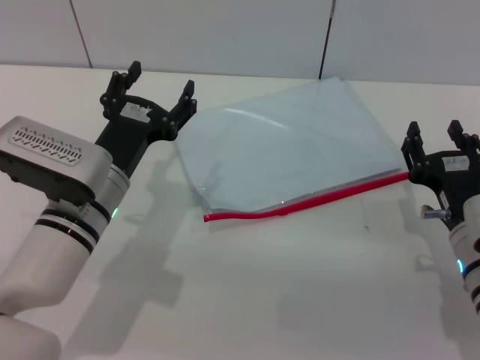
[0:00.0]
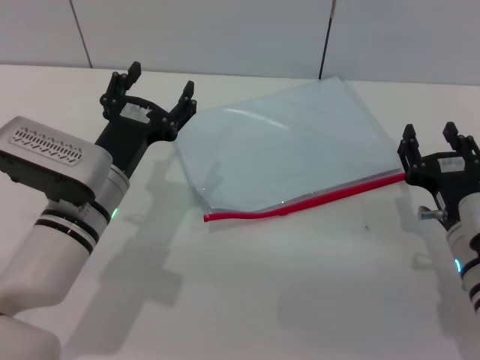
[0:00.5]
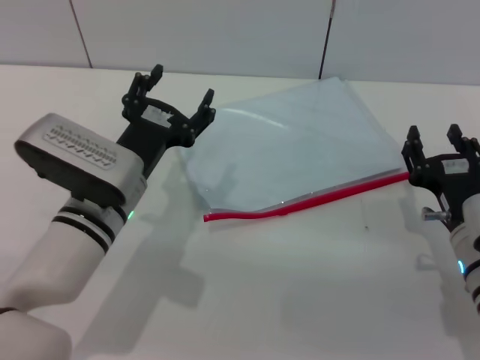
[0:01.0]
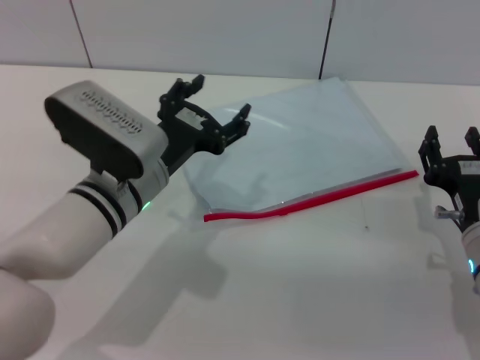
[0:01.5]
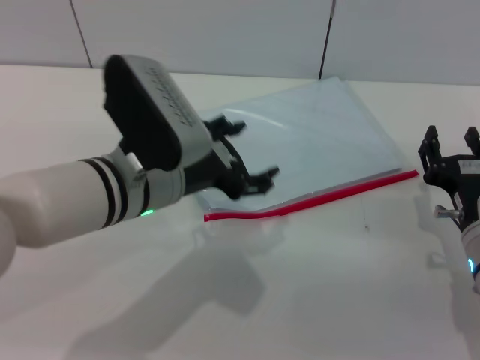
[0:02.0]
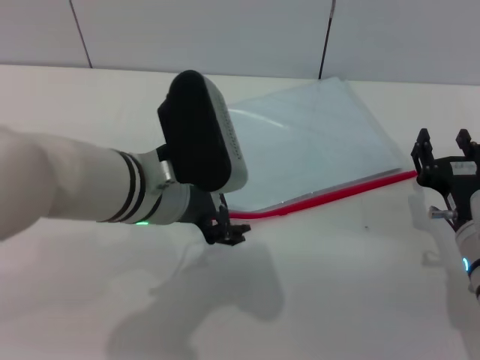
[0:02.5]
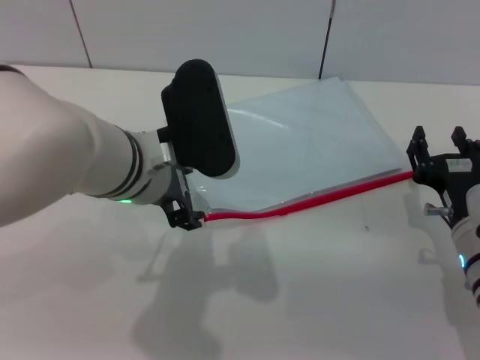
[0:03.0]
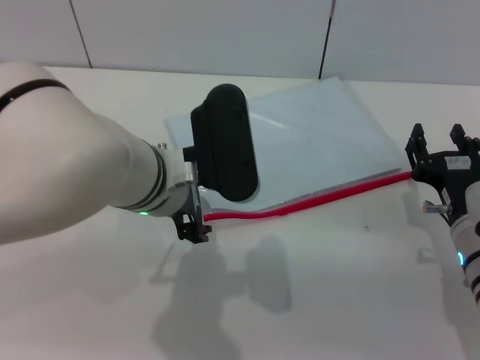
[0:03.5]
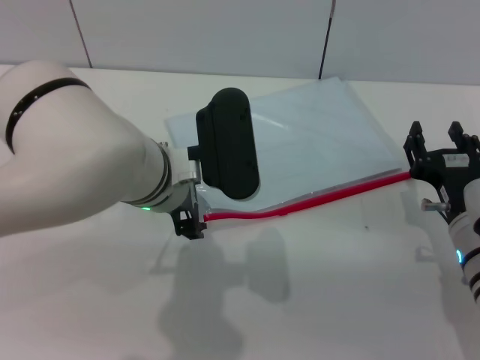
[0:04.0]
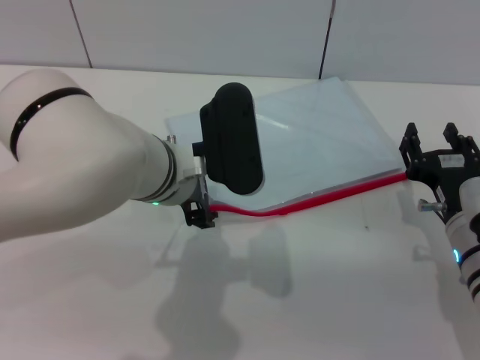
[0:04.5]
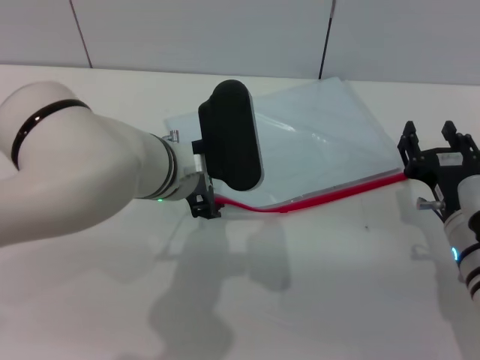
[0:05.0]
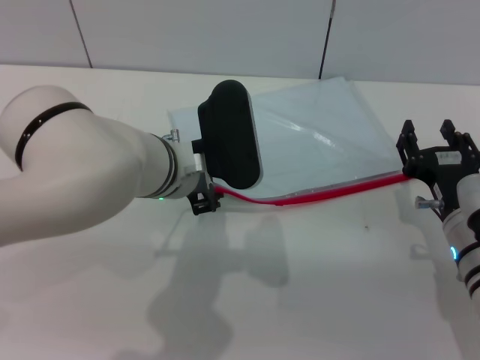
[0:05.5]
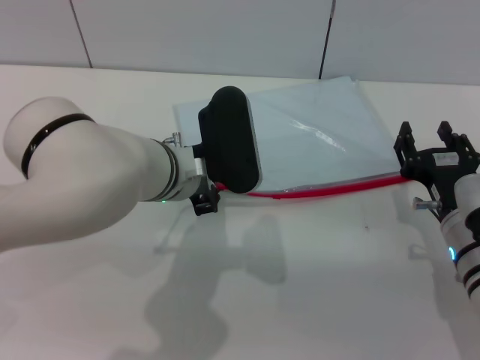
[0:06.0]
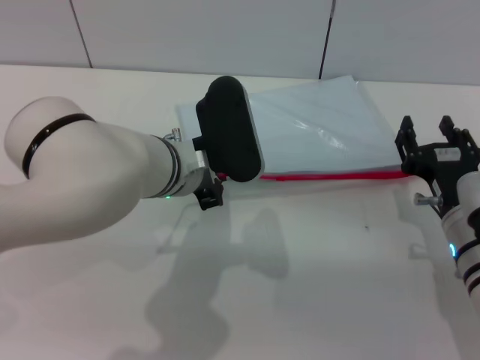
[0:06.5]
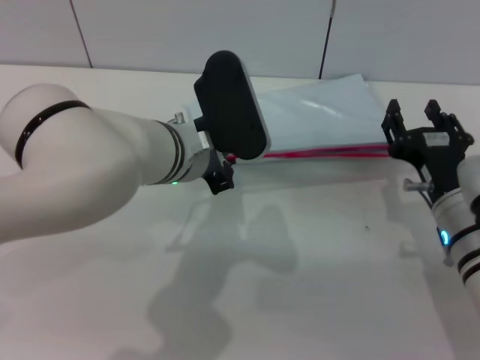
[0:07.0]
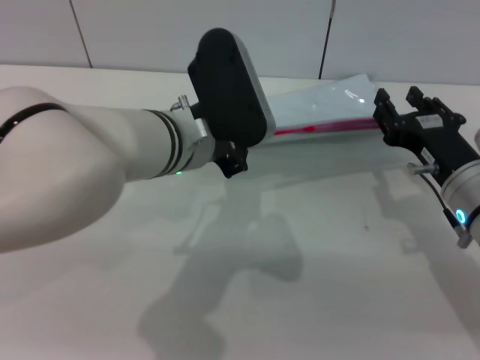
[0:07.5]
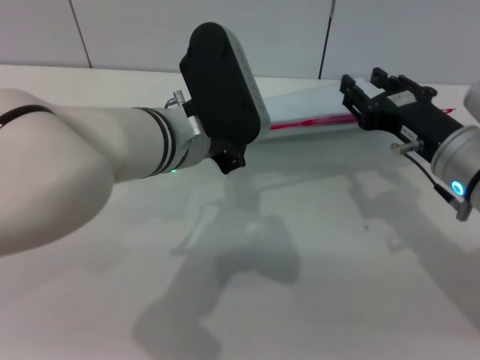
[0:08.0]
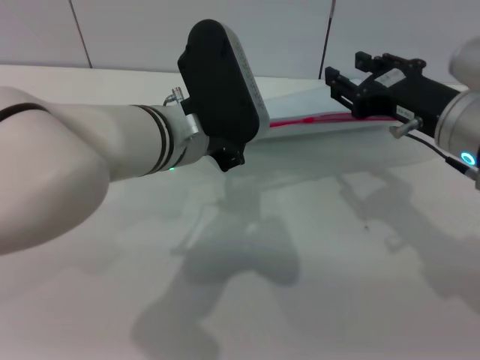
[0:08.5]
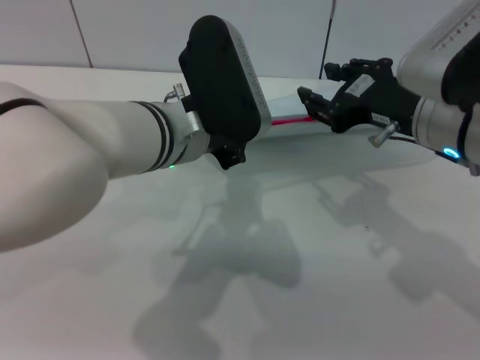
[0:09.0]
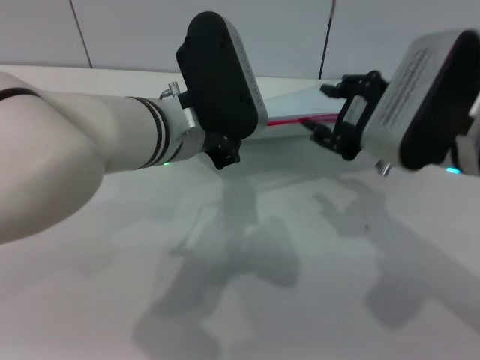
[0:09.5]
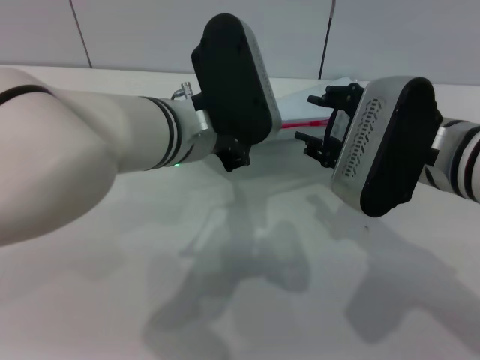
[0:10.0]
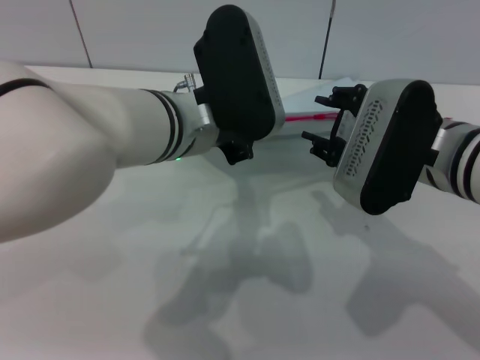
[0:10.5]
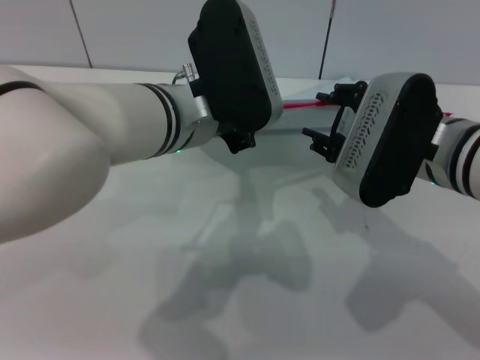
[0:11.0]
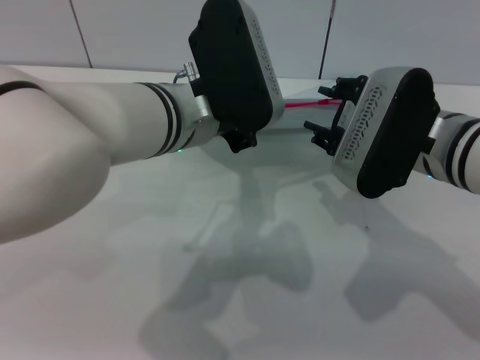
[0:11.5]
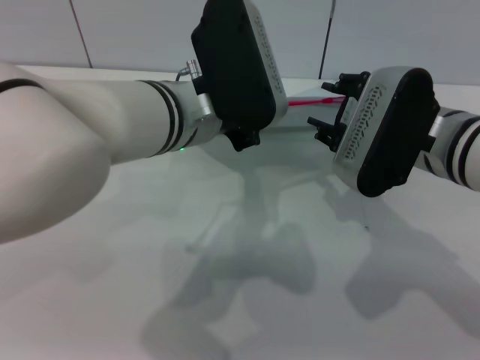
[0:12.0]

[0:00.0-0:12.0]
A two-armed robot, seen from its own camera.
Step, 0:00.0 to 0:08.0: Pick up the transparent plastic bag with the left gripper.
0:00.0 to 0:02.0: The left gripper moves upward, some 5 cm.
0:04.0 to 0:06.0: The left gripper closes.
0:06.0 to 0:08.0: The right gripper moves upward, approximately 10 cm.
0:08.0 to 0:10.0: The right gripper ends up some 5 cm from where it was.
0:10.0 to 0:12.0: The grippers move only a little.

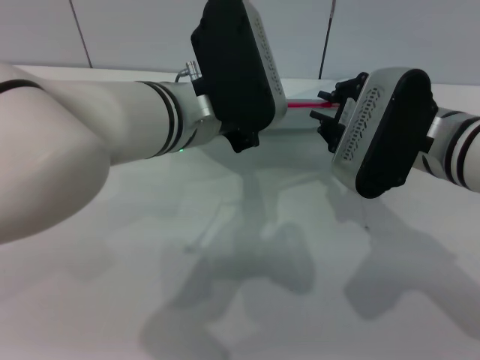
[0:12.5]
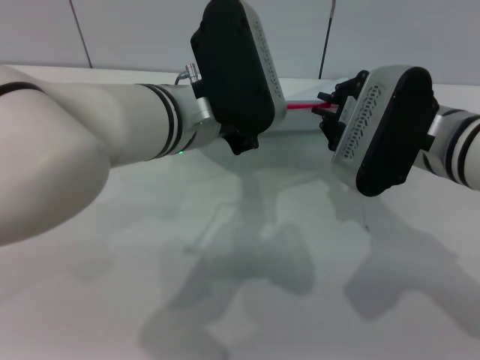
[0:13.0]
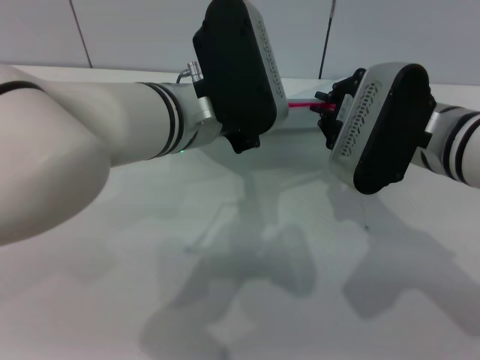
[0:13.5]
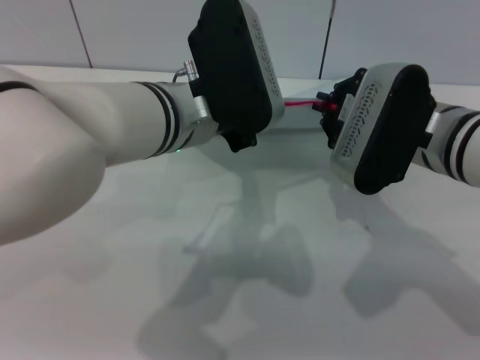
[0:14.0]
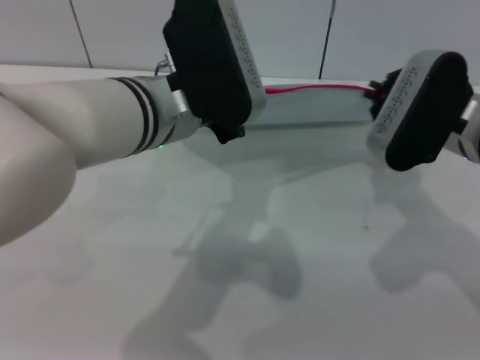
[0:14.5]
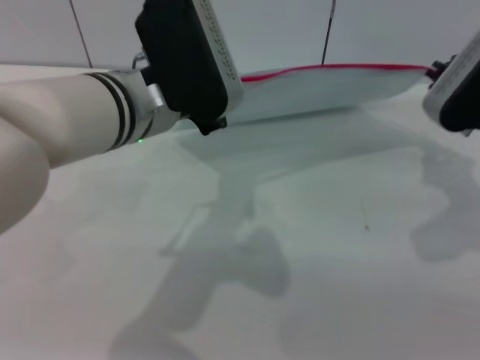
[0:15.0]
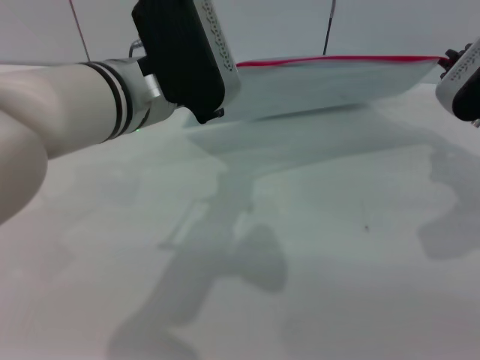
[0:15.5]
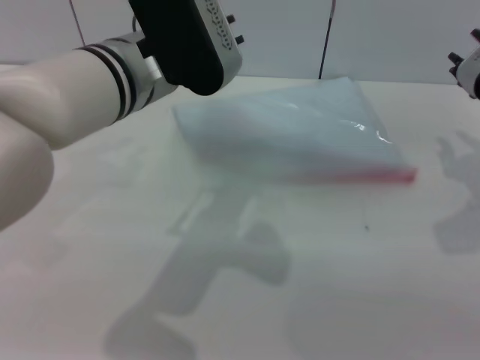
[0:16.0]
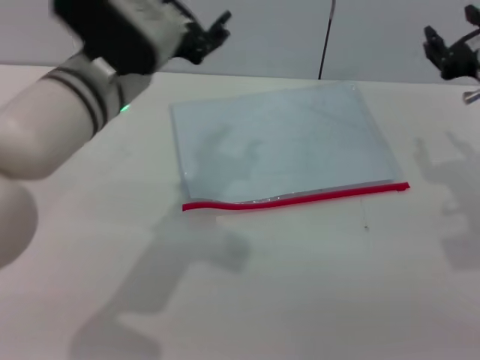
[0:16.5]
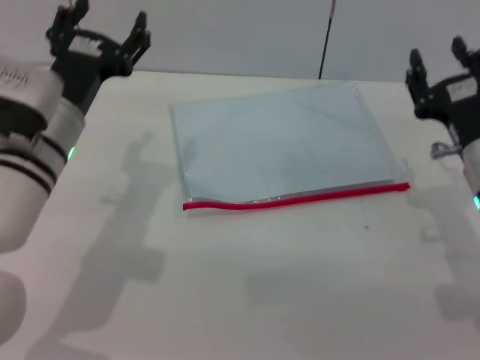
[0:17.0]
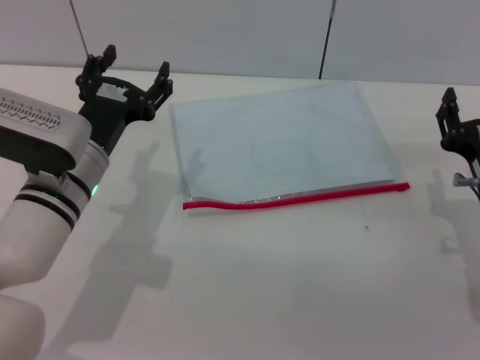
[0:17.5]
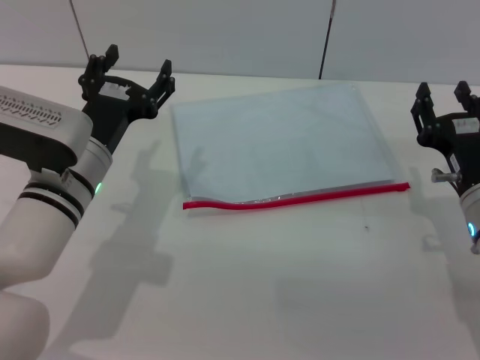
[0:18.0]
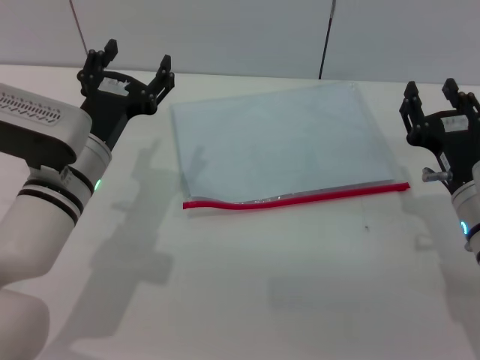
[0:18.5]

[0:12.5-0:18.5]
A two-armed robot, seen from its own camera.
Step, 0:12.5 to 0:15.5: Pulling up the zipper on the transparent plastic bag with the right gripper to close it.
0:12.5 to 0:14.5: The right gripper closes up.
0:14.5 to 0:16.5: The left gripper ends up about 5 cm from where it was, and opens its fingers. The right gripper heads to the right, covering some 5 cm, and opens up.
0:16.5 to 0:18.5: The left gripper is displaced downward by roughly 10 cm, and opens its fingers. Meanwhile the right gripper is displaced downward and backward by roughly 10 cm.
